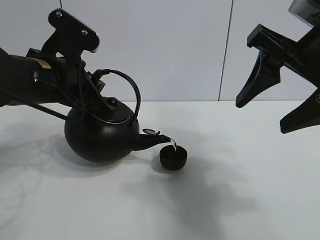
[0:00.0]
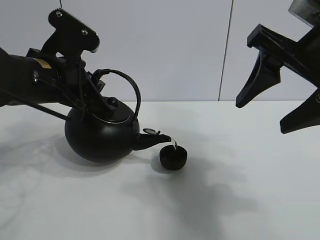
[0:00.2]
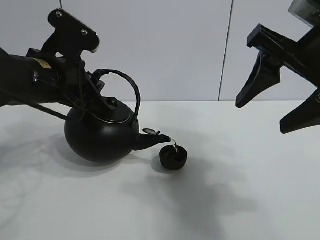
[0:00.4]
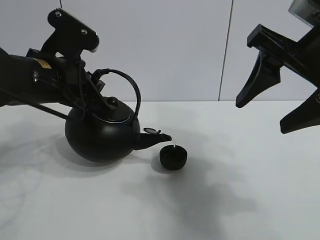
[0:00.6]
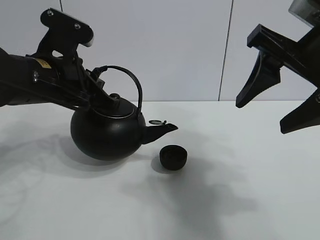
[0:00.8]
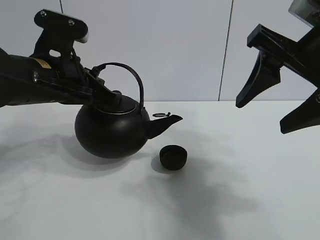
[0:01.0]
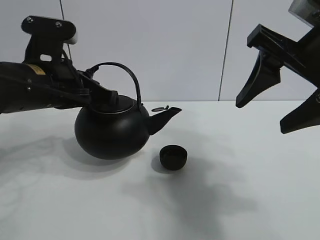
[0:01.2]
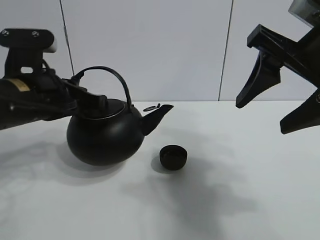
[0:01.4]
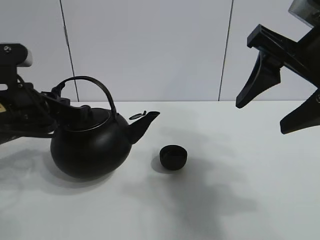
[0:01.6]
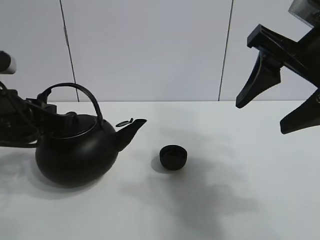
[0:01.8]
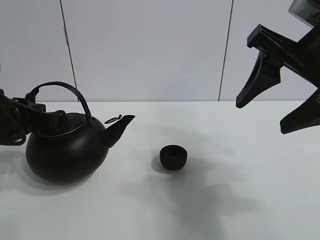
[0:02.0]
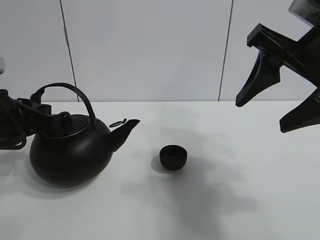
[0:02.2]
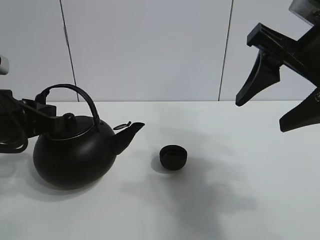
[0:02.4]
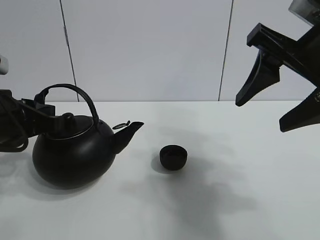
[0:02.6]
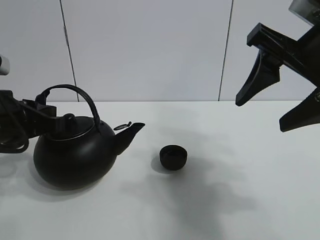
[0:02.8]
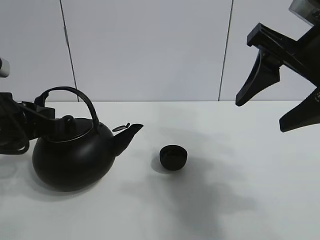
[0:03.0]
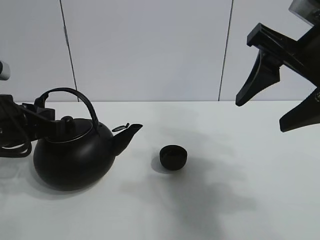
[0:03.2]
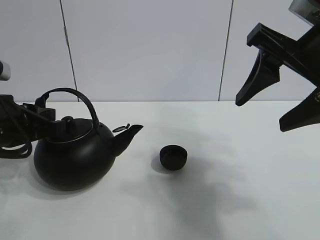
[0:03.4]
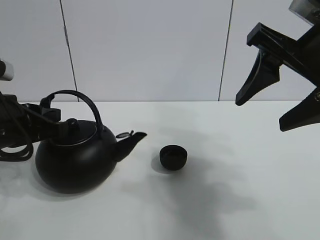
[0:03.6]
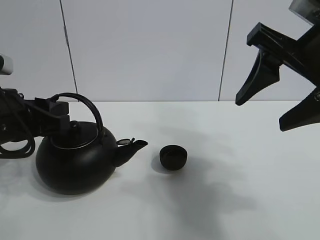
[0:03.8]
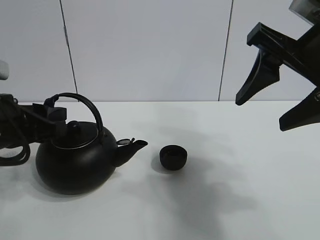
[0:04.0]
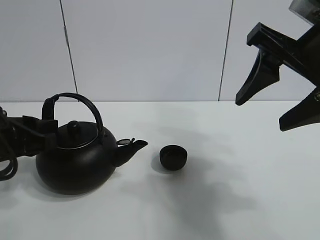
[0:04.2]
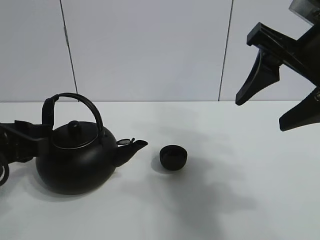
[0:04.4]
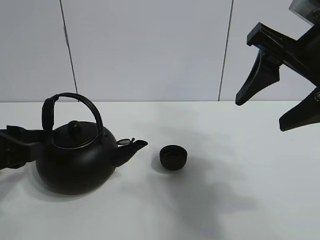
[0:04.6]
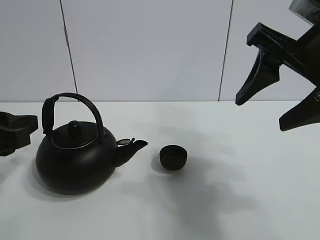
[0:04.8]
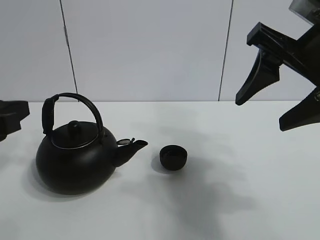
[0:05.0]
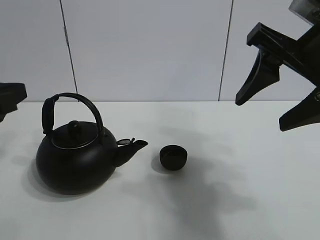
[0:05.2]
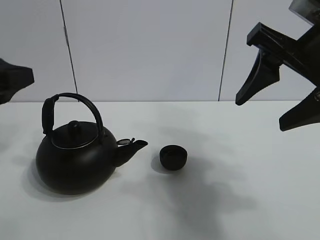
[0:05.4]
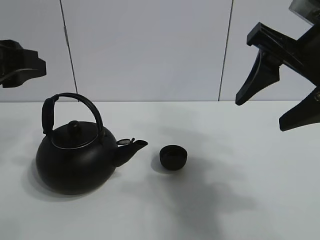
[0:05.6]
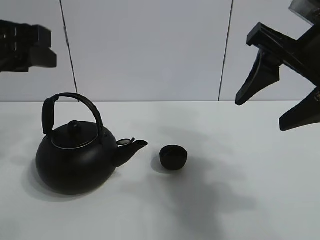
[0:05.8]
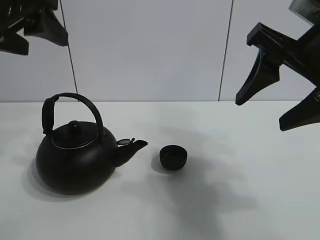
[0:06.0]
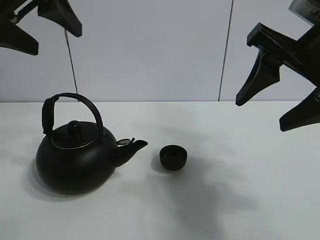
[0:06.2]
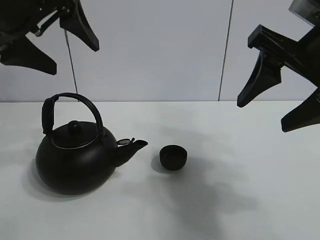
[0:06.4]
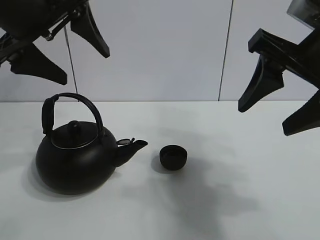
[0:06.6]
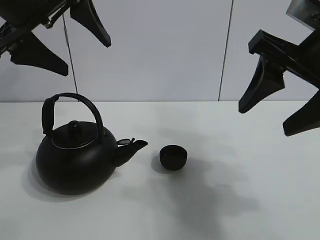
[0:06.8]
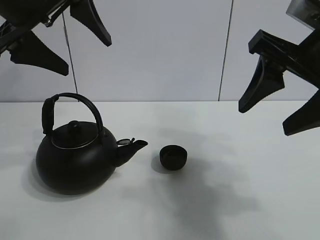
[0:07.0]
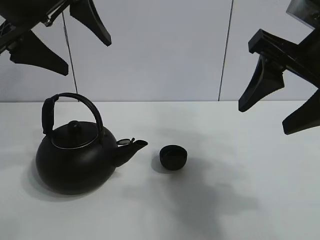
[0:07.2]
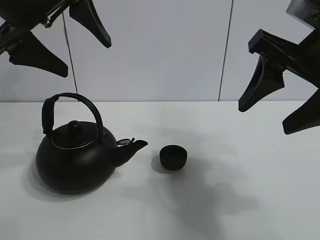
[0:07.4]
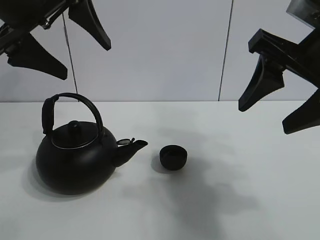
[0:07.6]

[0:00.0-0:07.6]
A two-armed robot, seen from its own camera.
Task of the whole recording: pour tea into the teacup.
0:00.0 to 0:01.6: The left gripper moves about 5 cm.
0:01.6 to 0:03.0: There are only small adjustments of the grippers.
0:03.0 to 0:04.6: The left gripper opens its fingers.
0:04.6 to 0:06.0: The left gripper shifts some 15 cm upward.

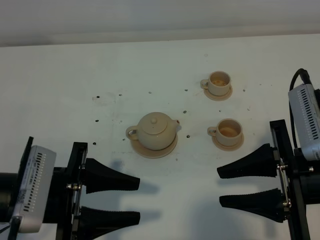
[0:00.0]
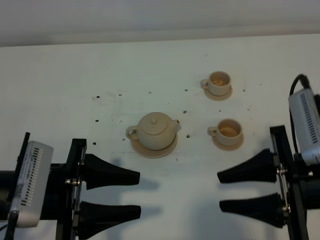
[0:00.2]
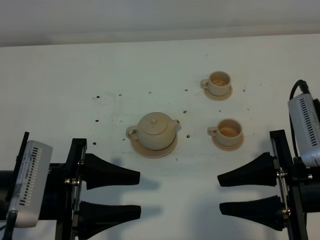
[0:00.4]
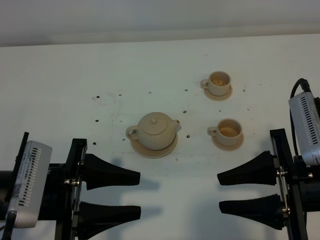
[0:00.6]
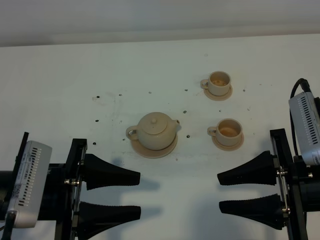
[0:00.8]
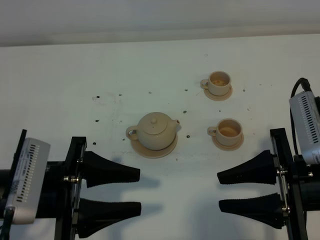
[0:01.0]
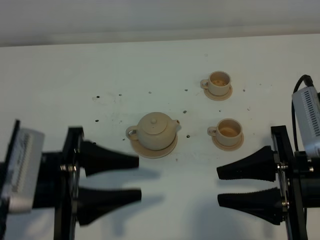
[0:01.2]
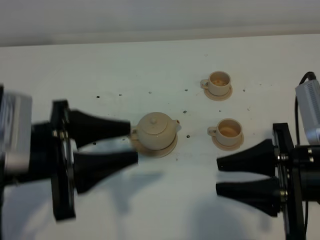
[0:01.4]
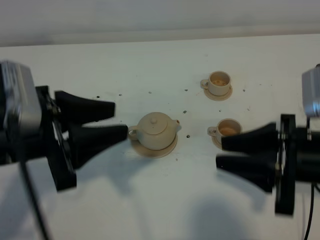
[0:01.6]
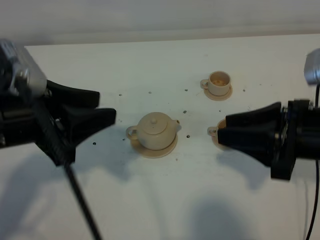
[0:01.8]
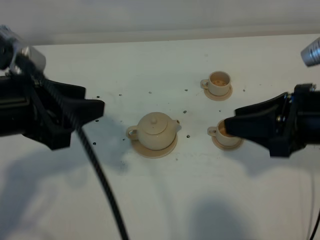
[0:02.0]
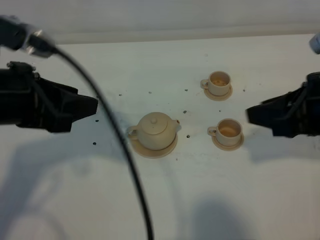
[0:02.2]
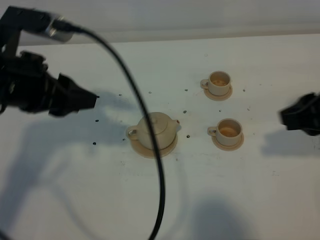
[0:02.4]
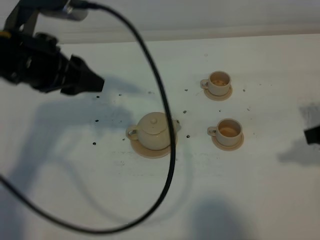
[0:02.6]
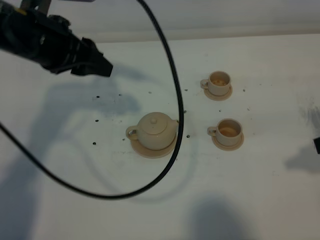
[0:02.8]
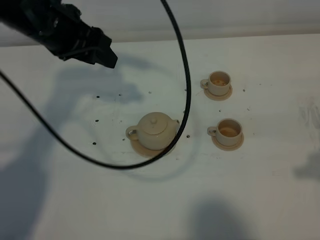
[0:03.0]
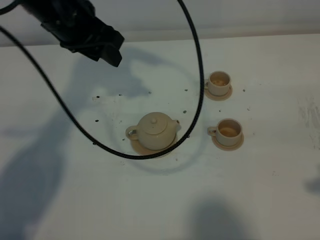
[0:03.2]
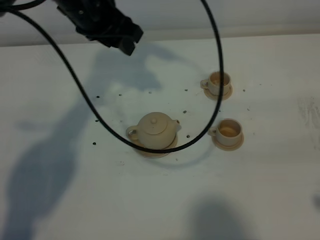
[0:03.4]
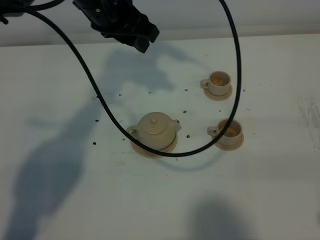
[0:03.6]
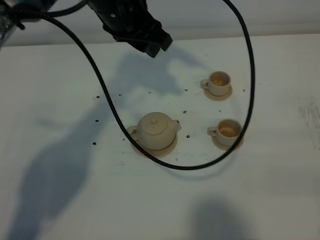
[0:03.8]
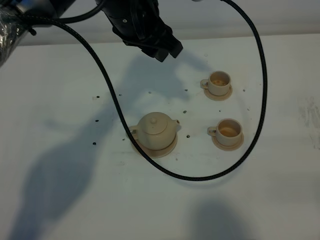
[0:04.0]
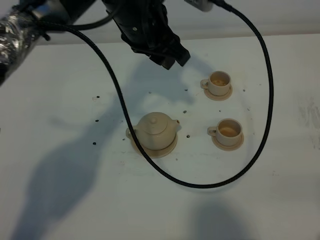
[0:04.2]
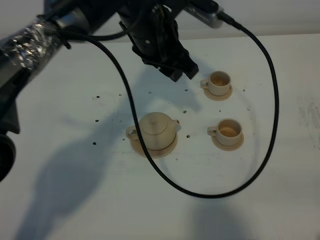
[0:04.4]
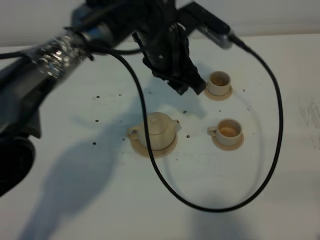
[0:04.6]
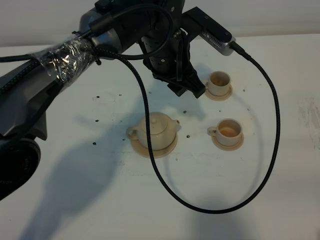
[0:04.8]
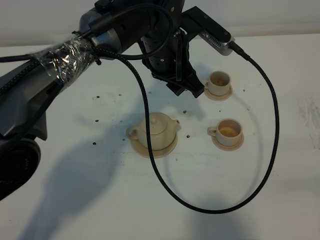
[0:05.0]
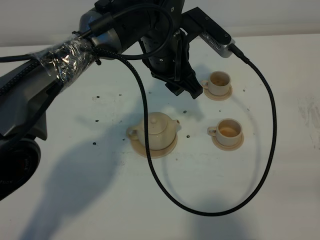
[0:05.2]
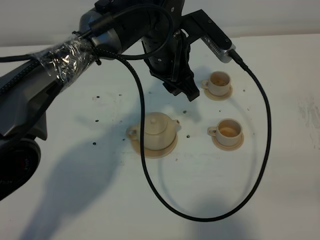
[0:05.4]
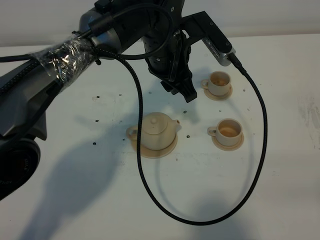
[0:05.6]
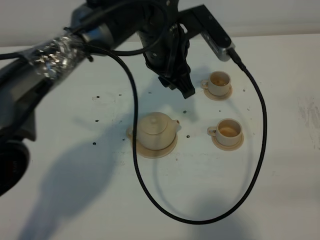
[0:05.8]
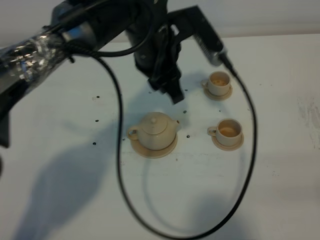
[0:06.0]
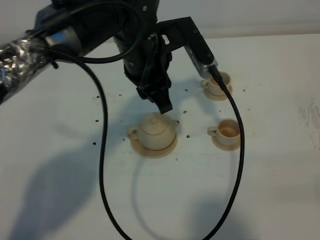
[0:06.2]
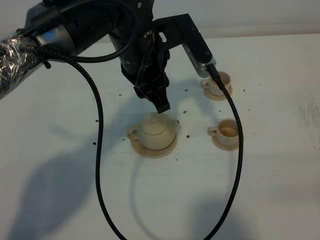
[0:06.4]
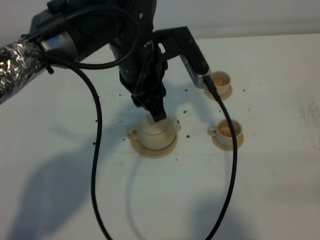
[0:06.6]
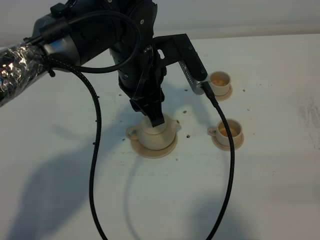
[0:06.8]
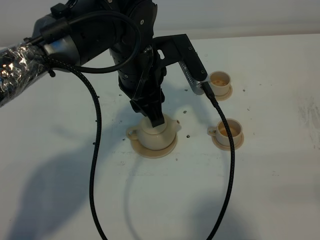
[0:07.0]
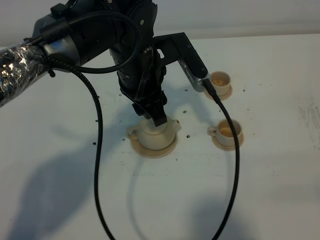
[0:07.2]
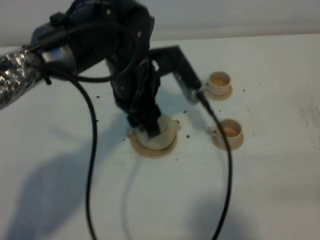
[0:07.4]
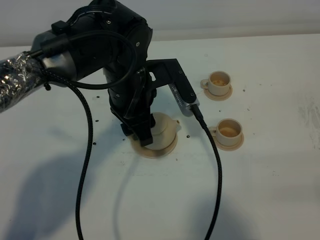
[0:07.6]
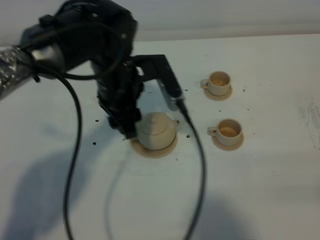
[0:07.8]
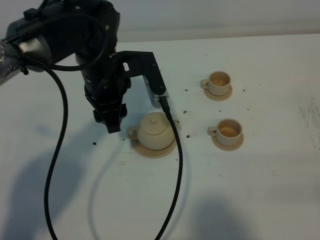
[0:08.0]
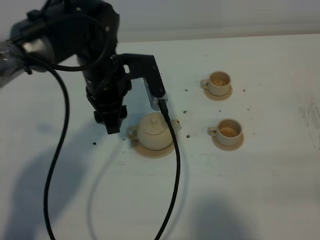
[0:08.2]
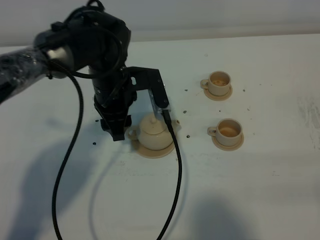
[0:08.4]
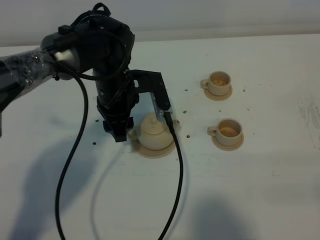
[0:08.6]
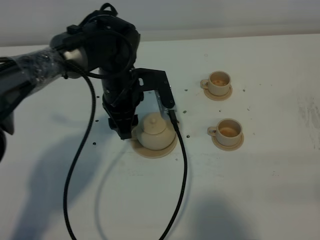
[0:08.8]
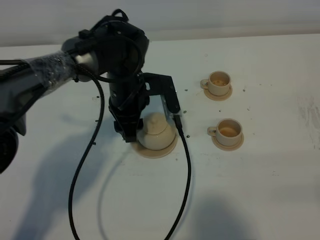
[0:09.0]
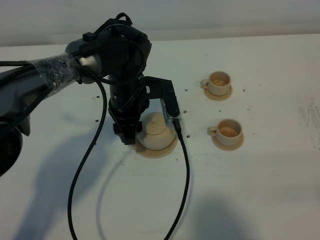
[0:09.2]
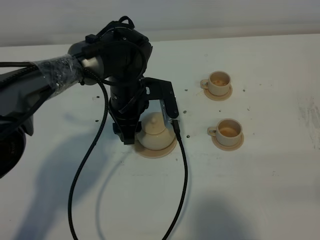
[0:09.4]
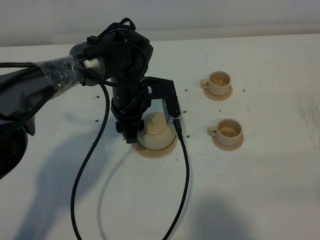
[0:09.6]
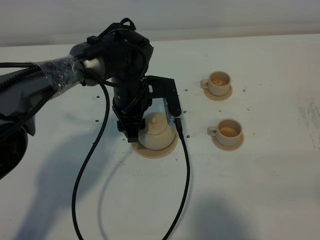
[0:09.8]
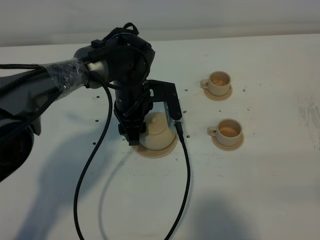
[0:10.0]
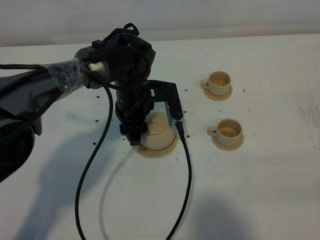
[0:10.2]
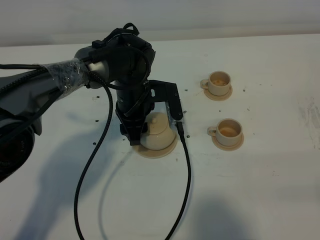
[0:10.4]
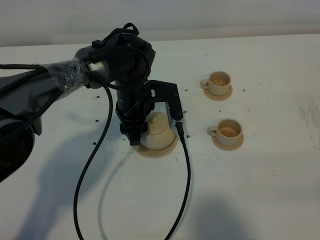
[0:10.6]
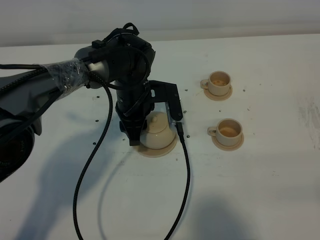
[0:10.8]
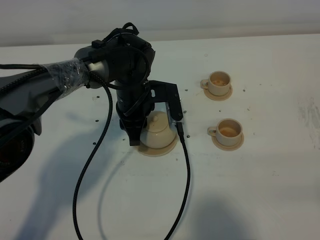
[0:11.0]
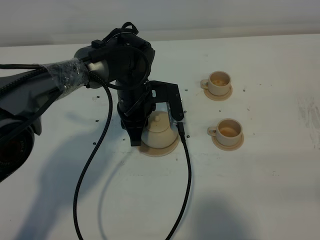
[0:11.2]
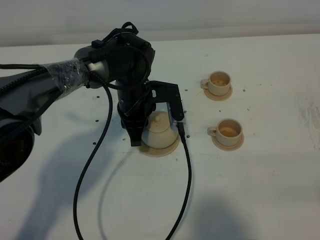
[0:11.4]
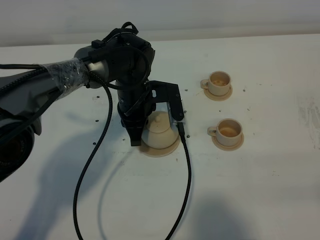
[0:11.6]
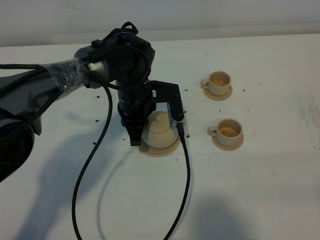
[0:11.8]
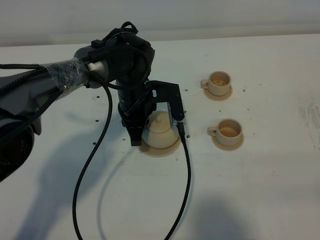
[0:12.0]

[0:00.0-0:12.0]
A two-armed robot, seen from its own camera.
Task of the whole recording: grasp the brown teapot and pour the tea into the two brown teacups one by one, put the brown teapot back in its original place.
0:00.0 to 0:01.6: The left gripper is displaced upward by some 10 cm.
0:01.6 to 0:03.0: The left gripper is displaced forward by about 20 cm, while the right gripper goes some 10 cm to the right and upward.
0:03.0 to 0:04.4: The left gripper travels to the right by roughly 15 cm; the right gripper travels backward and downward by roughly 15 cm.
0:06.0 to 0:07.6: The left gripper ends up about 5 cm from where it was.
0:07.6 to 0:09.0: The left gripper moves downward and forward, approximately 10 cm.
0:09.0 to 0:10.4: The grippers stay close to where they were, moving slightly.
0:10.4 to 0:12.0: The left gripper closes up.

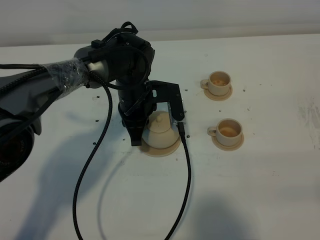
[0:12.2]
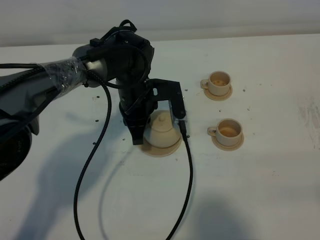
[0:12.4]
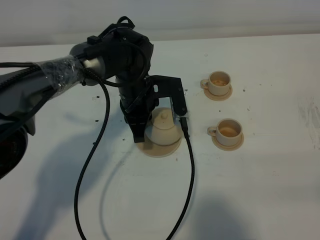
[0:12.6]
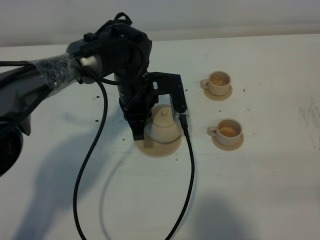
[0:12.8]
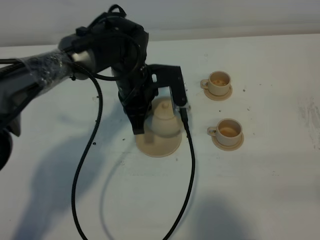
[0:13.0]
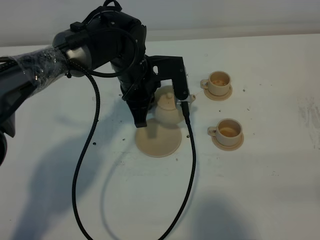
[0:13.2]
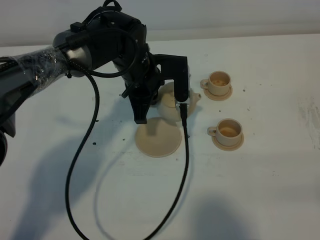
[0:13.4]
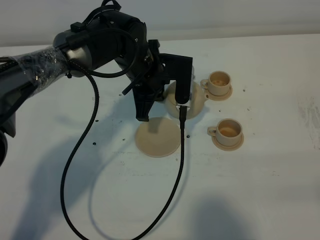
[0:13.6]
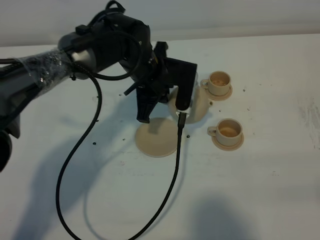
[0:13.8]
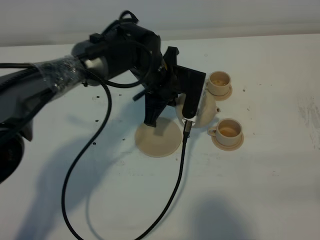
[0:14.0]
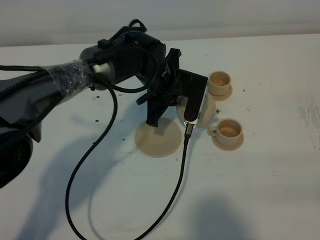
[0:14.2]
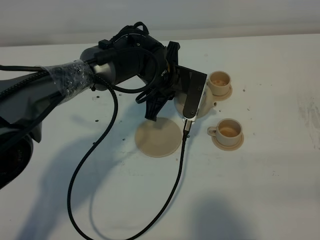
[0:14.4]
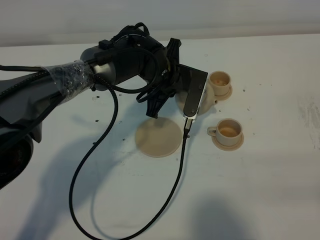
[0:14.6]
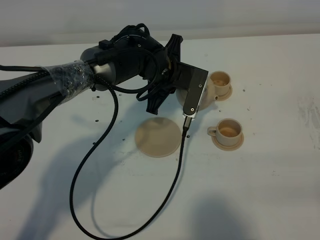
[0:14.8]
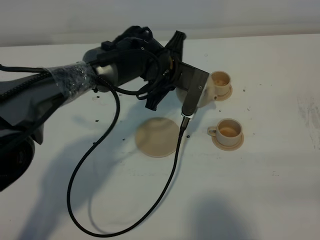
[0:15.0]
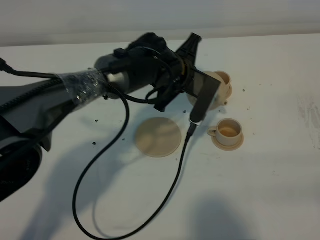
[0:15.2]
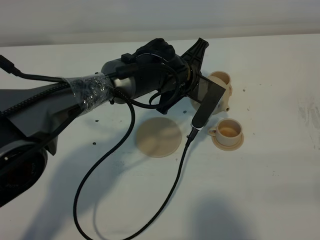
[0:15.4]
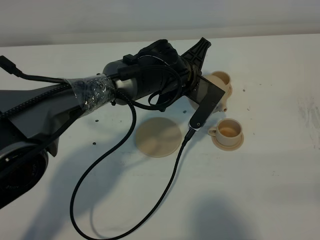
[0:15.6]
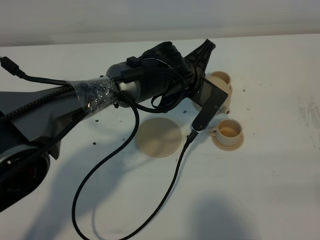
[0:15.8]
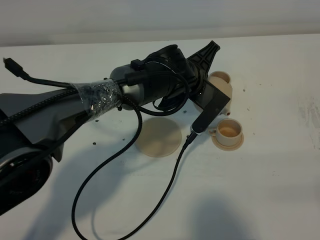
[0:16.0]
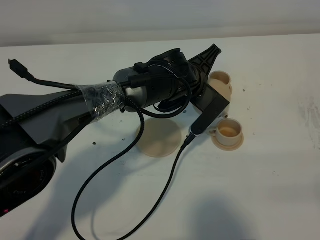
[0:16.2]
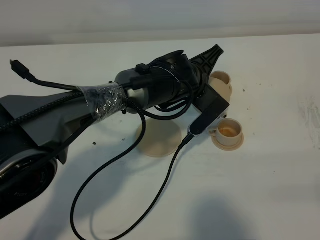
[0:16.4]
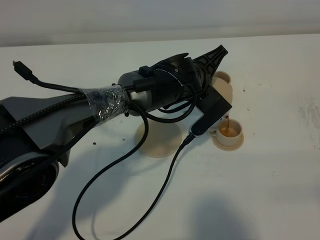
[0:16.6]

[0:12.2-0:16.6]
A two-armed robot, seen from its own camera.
Task of the whole recording: grasp the brown teapot and pour the tea into the two brown teacups one by one, put the brown teapot back in its original place.
0:12.2 to 0:13.6: The left gripper moves upward, roughly 5 cm.
0:13.6 to 0:15.2: The left gripper moves to the right, some 5 cm.
